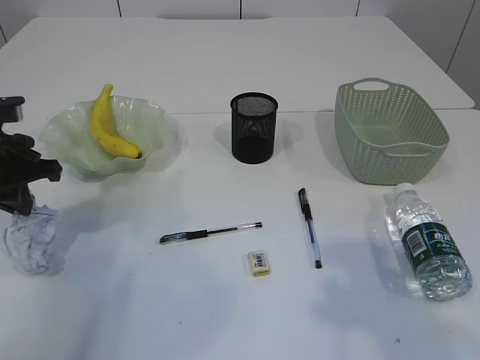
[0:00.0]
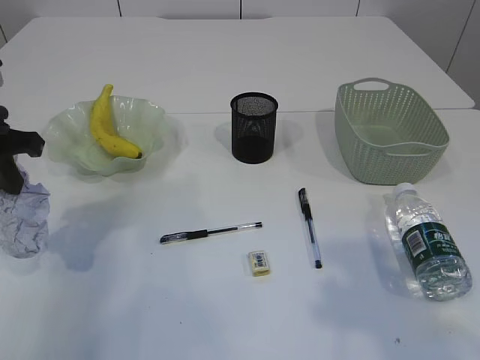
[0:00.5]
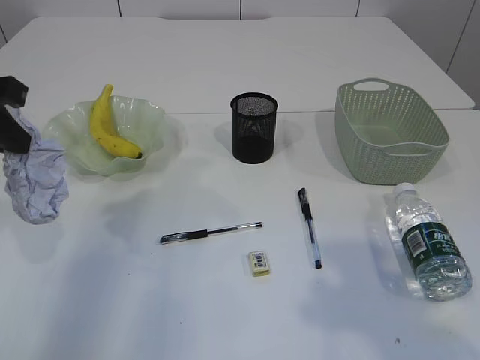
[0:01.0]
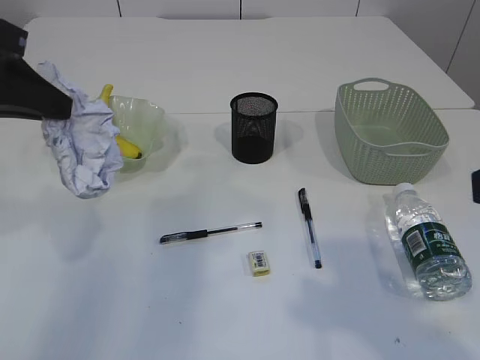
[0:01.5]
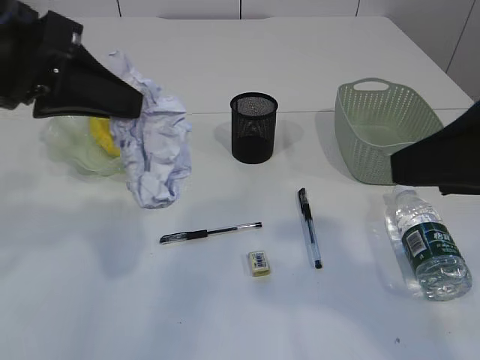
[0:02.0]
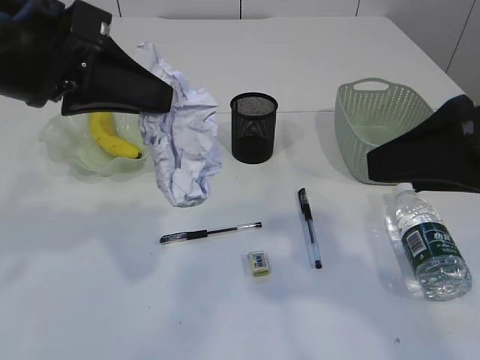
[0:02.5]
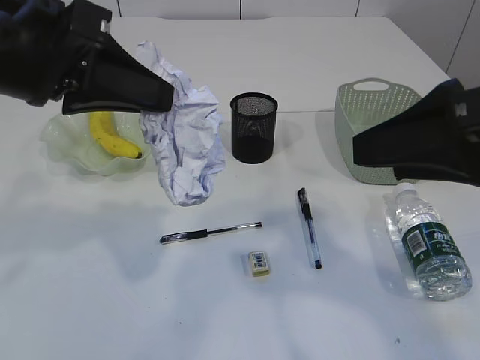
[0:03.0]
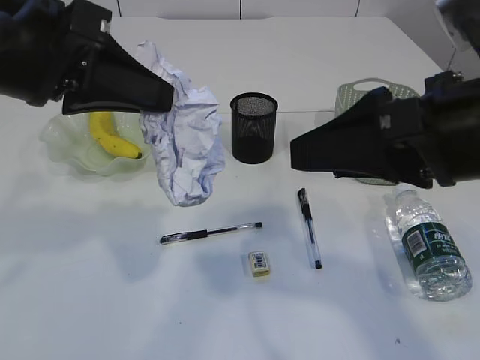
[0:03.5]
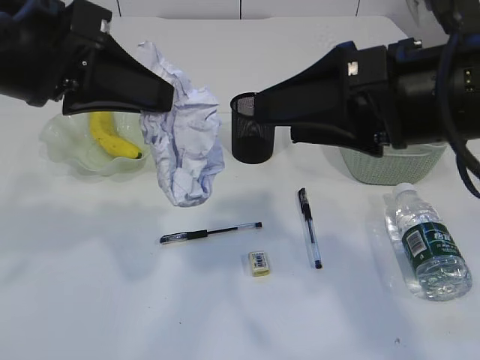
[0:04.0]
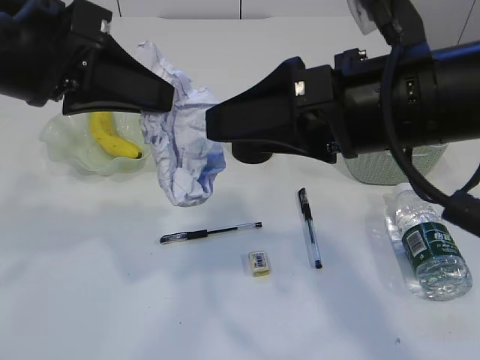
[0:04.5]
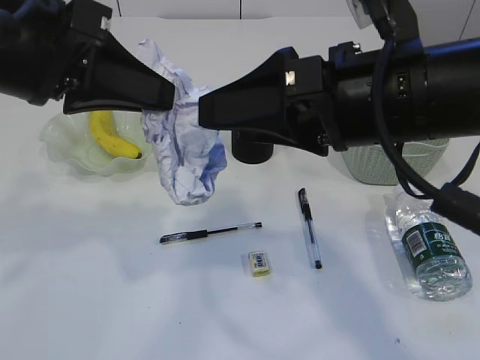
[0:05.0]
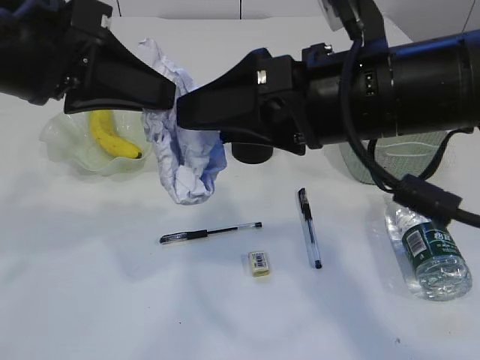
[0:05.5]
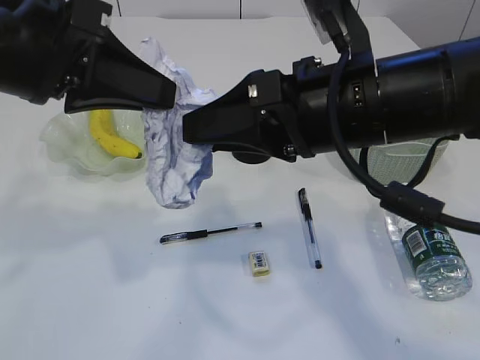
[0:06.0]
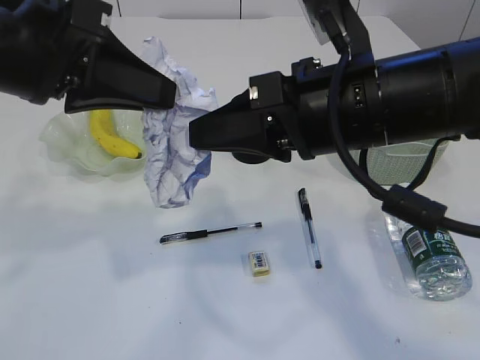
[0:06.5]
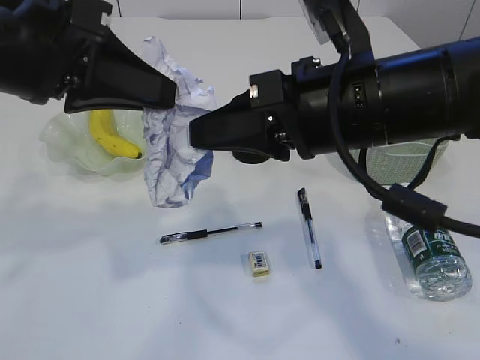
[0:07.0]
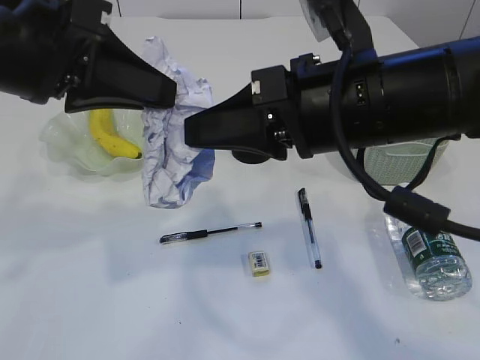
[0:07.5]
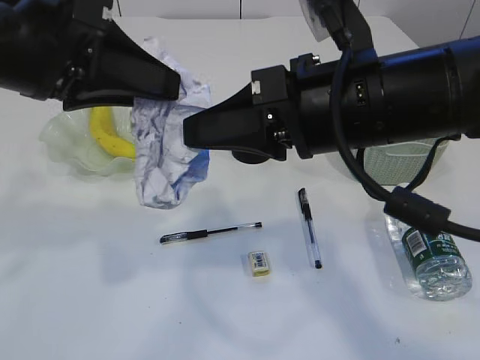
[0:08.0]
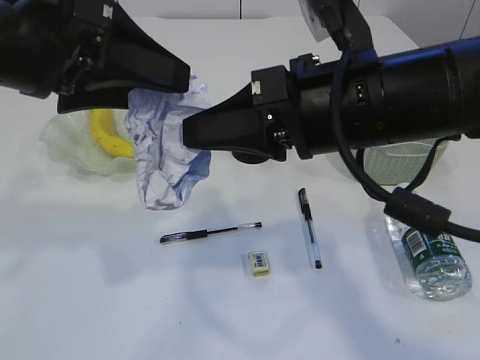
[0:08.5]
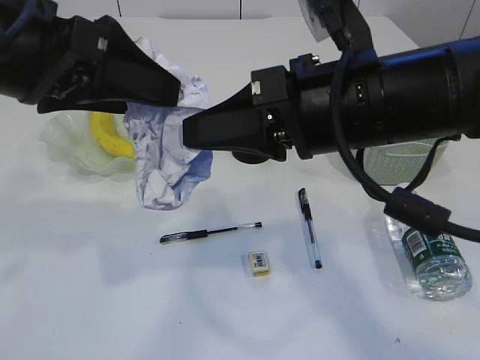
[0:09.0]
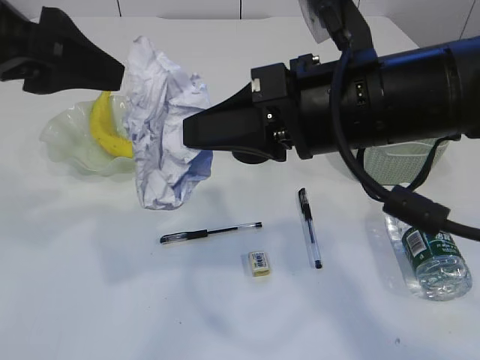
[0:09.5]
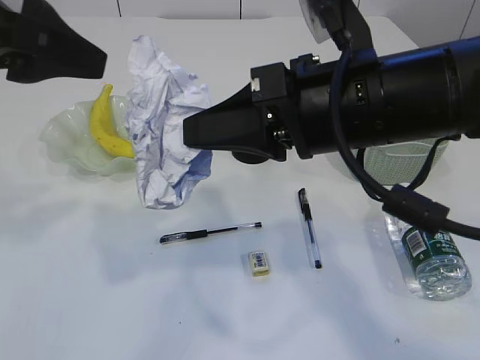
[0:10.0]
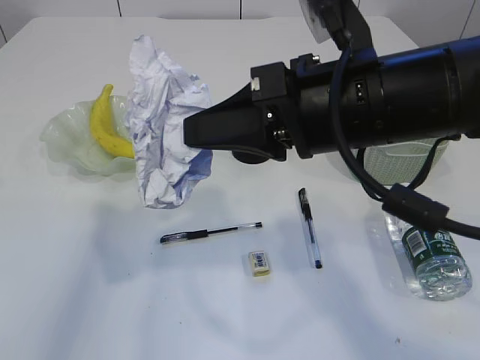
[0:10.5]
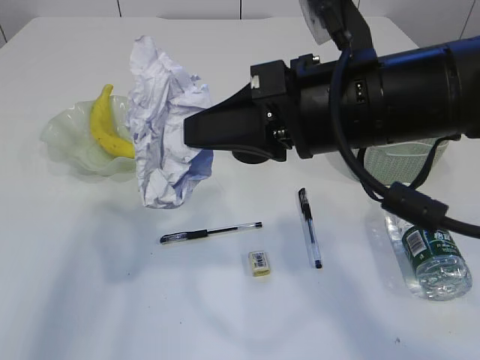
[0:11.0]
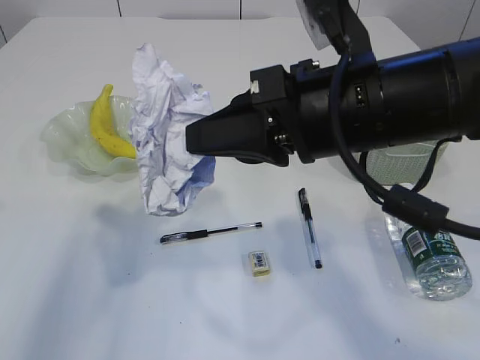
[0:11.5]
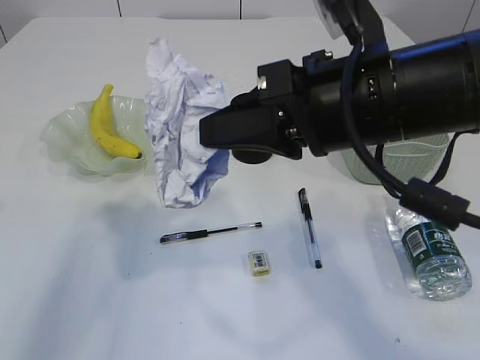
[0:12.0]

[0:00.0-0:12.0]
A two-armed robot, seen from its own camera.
Step, 0:00.5 to 0:10.0: Hand over the waste paper.
0:00.0 to 0:02.0: The right gripper ends up roughly 5 cm from where it was. The left gripper goes some 20 cm upward, to the right and backward.
0:02.0 to 0:04.0: The right gripper heads to the left and forward, covering approximately 10 cm.
0:04.0 to 0:06.0: The right gripper is displaced to the left by some 5 cm.
0:06.0 to 0:08.0: The right gripper closes up.
0:08.0 to 0:10.0: The left gripper opens up.
0:10.0 to 0:12.0: The left gripper travels to the left and downward by roughly 10 cm.

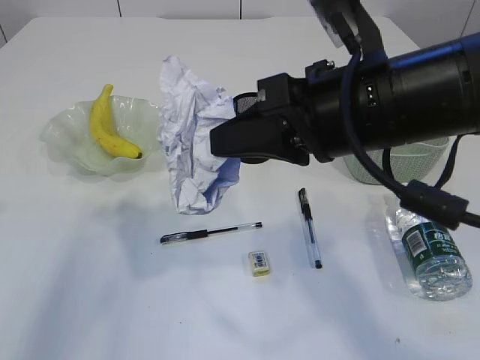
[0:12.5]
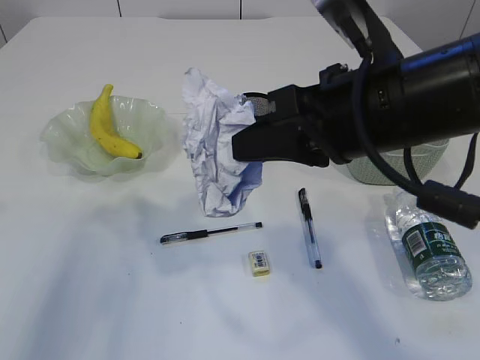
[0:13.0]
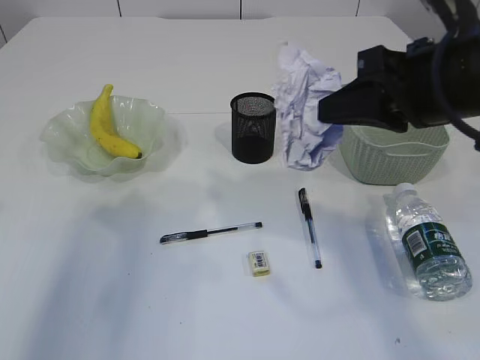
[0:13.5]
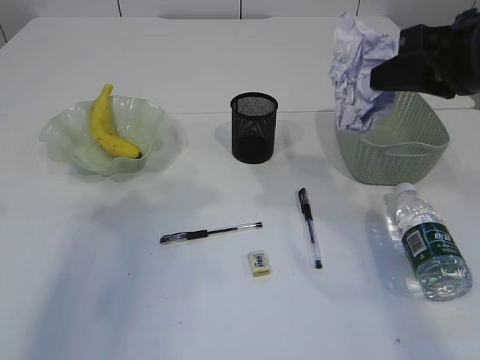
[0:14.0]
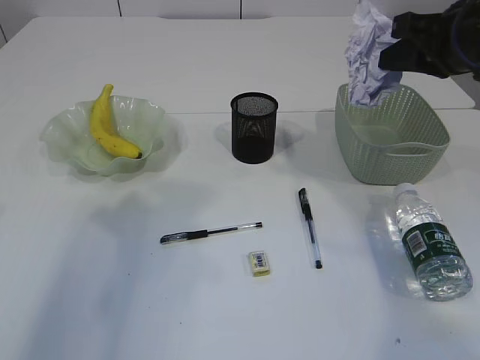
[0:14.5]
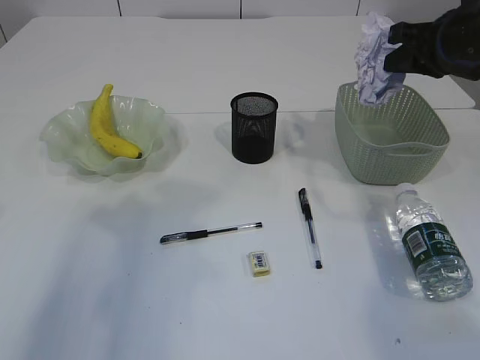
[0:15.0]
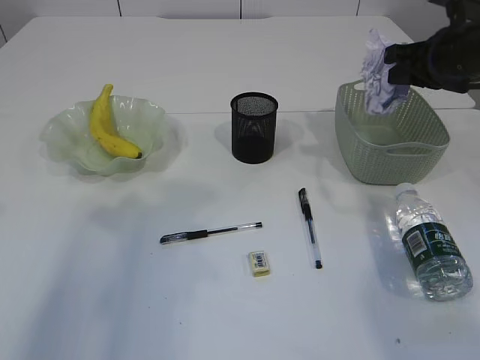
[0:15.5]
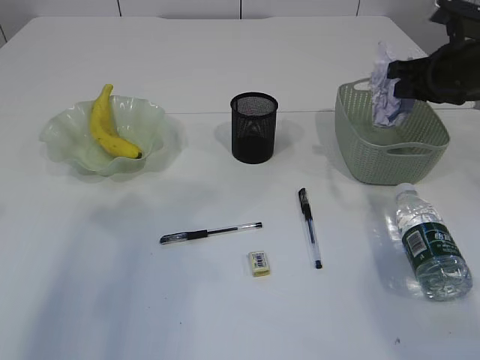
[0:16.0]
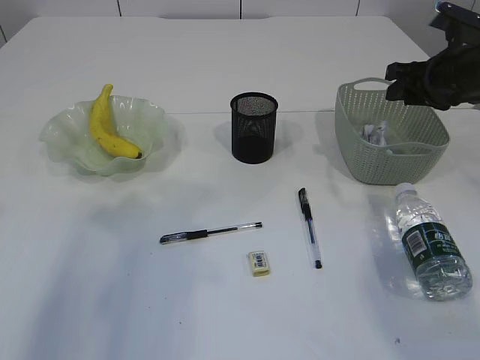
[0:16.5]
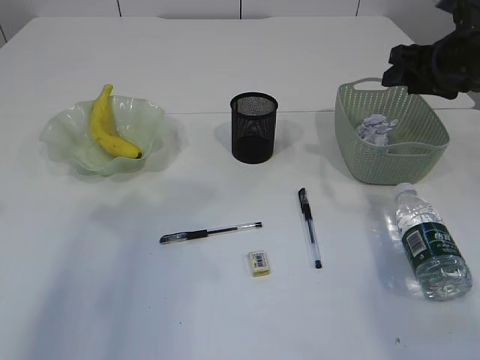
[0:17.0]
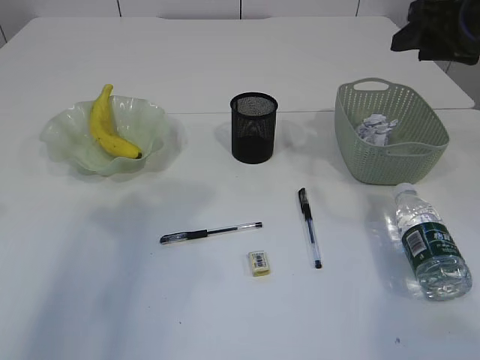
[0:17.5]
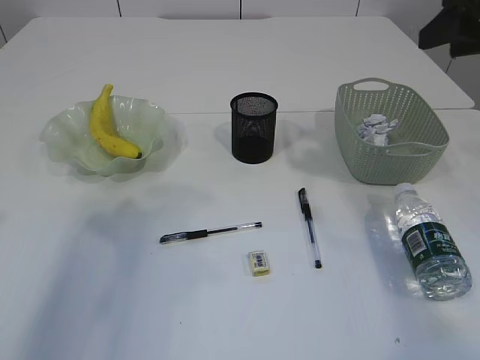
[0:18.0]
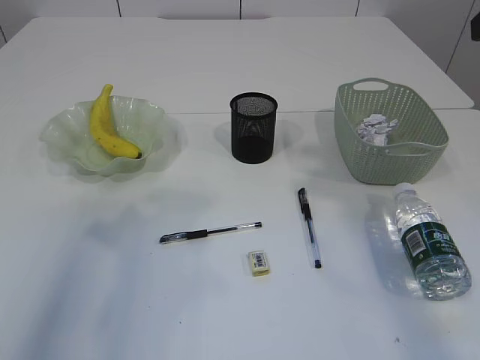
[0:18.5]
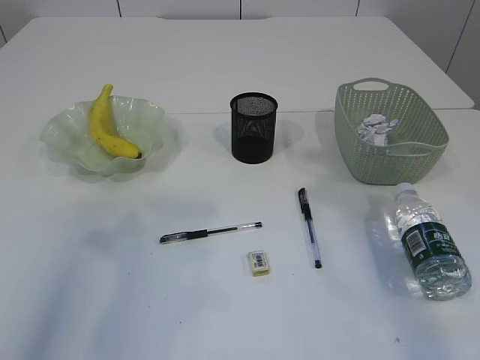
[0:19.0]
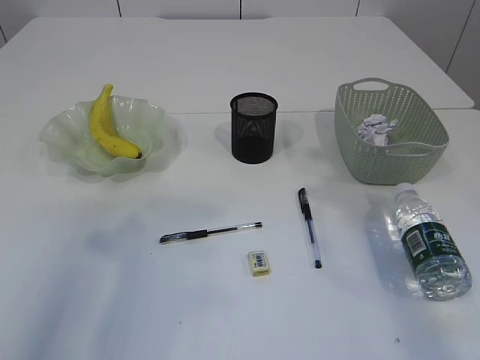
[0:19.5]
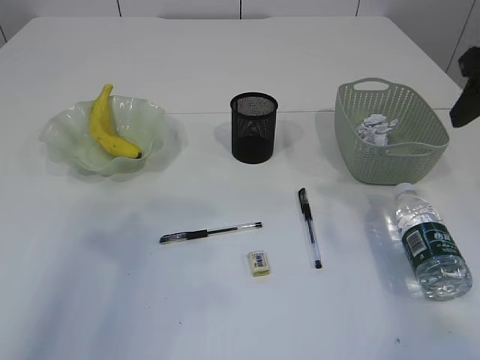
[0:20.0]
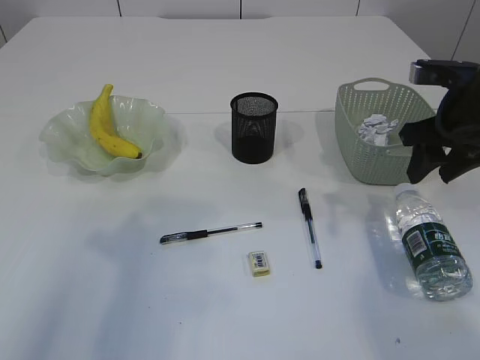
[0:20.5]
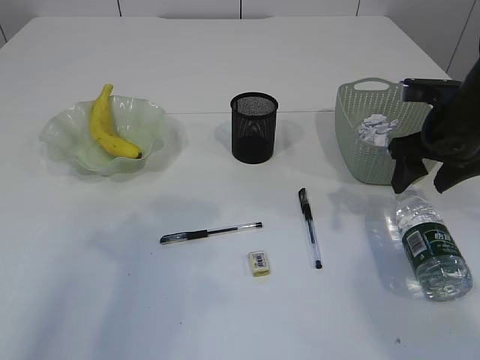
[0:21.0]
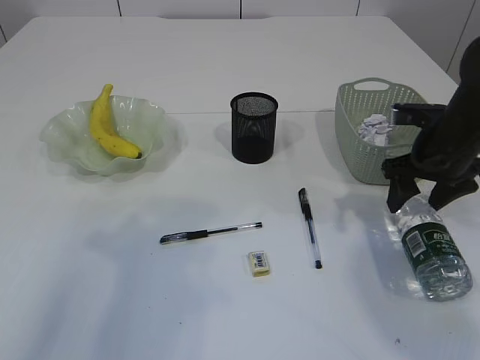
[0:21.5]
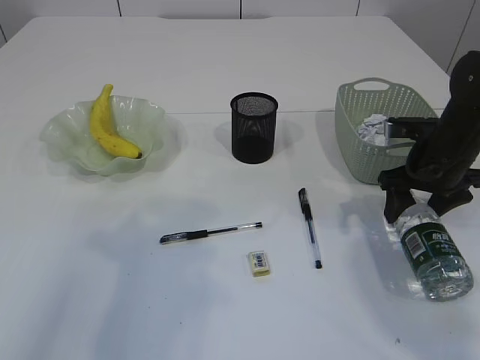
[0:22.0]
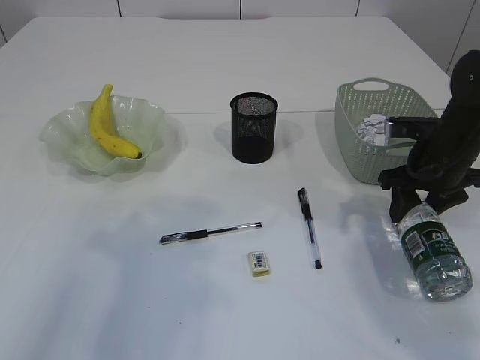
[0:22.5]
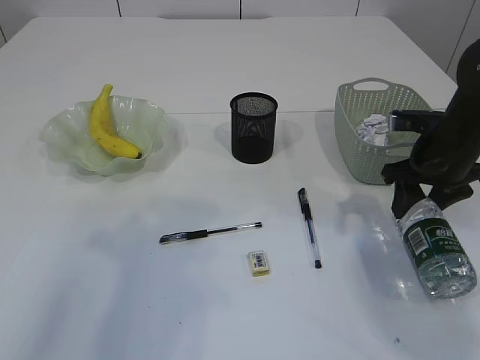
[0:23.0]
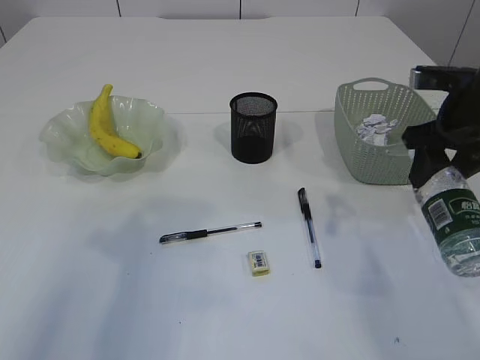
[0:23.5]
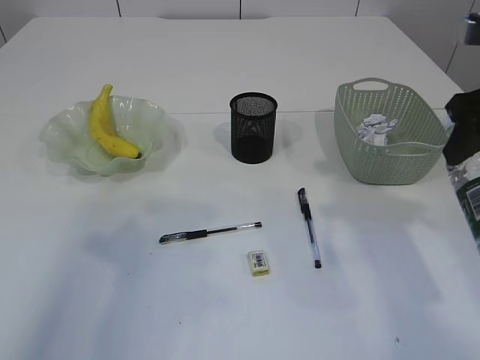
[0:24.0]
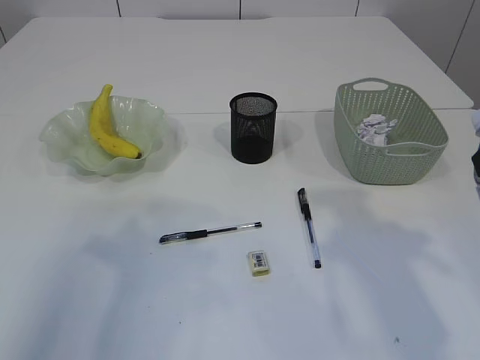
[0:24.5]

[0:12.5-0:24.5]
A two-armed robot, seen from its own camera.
Step, 0:12.5 to 0:17.0: Place the waste paper in the basket.
Step, 0:17.5 to 0:23.0: Pick up the bottle with the right arm.
0:12.5 to 0:14.5: The right gripper moves to the right and forward, about 20 cm.
0:14.5 to 0:16.5: The right gripper heads forward, downward and to the right, covering approximately 15 cm, and opens its fingers.
0:16.5 to 0:18.5: The right gripper is displaced upward and backward by about 25 cm.
0:18.5 to 0:20.5: The right gripper goes about 20 cm downward and forward.
0:20.5 to 0:22.5: The right gripper goes some 10 cm downward.
0:22.5 to 0:24.5: The right gripper travels upward and backward by roughly 25 cm.

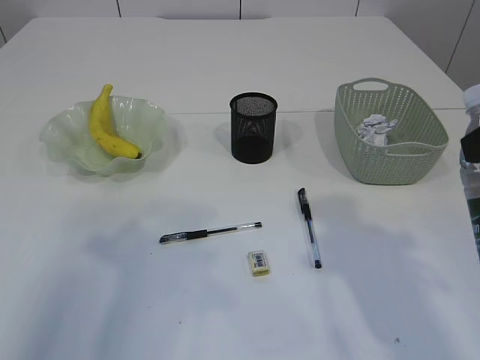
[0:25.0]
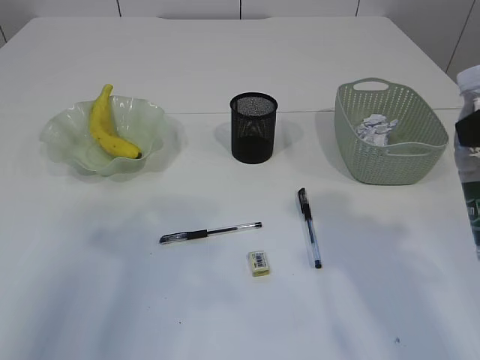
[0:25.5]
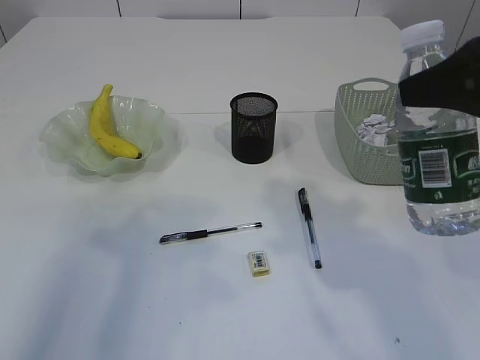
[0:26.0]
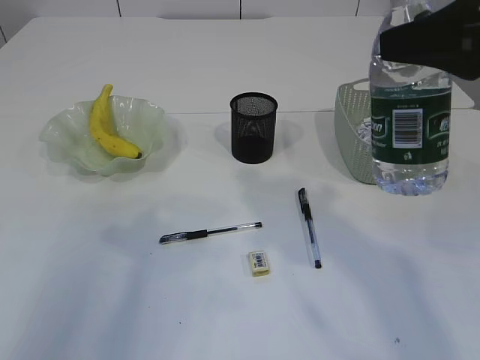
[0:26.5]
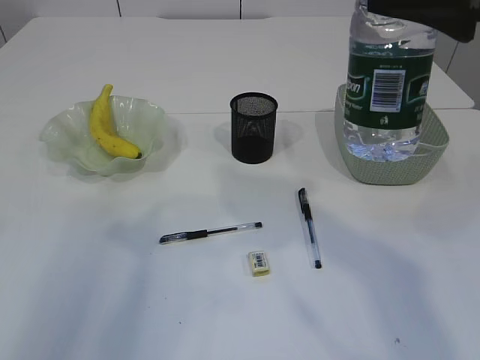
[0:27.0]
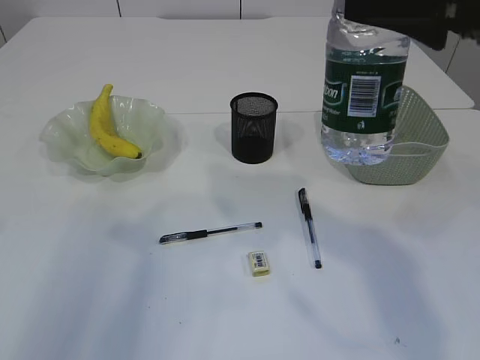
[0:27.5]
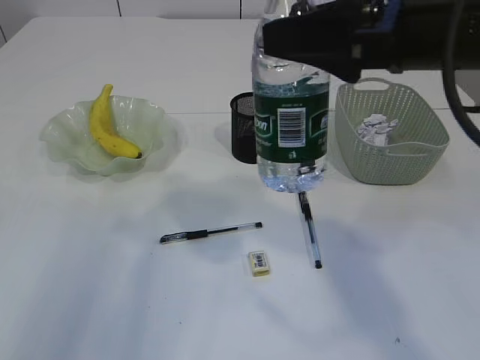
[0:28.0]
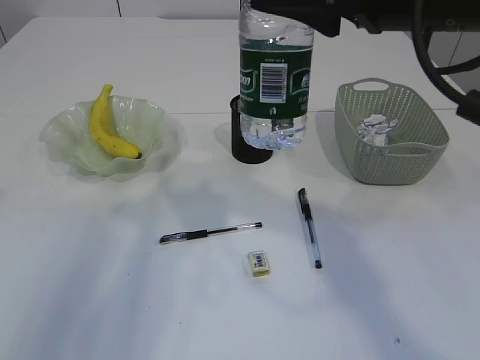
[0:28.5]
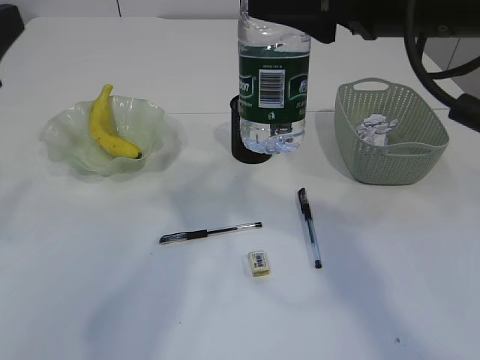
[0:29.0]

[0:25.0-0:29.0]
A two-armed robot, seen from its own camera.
0:25.0 to 0:27.0: The right gripper changes place by roughly 5 cm.
0:27.0 to 0:29.0: The right gripper moves to the left and forward, some 10 cm.
